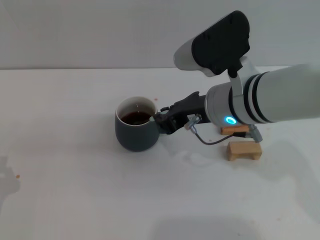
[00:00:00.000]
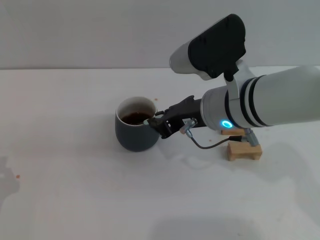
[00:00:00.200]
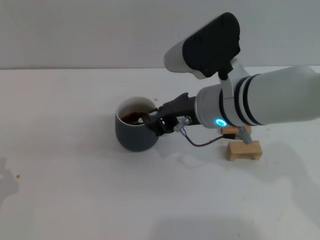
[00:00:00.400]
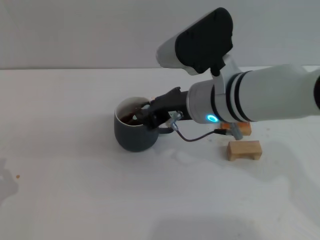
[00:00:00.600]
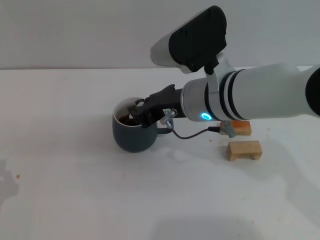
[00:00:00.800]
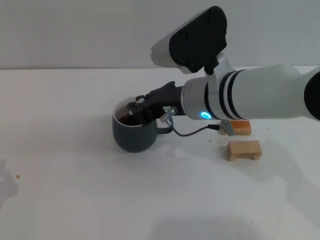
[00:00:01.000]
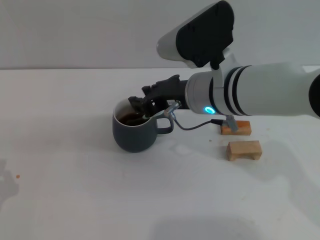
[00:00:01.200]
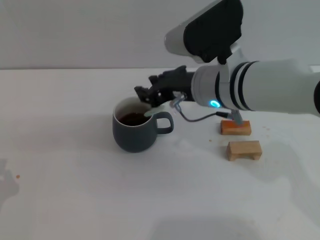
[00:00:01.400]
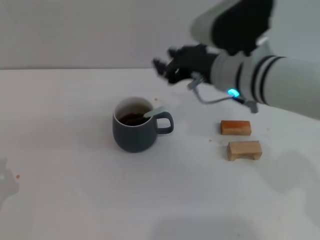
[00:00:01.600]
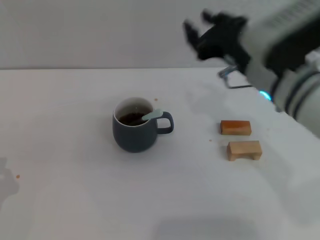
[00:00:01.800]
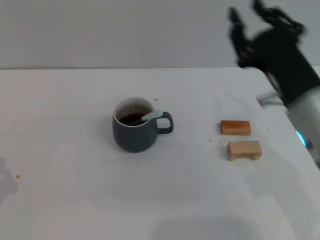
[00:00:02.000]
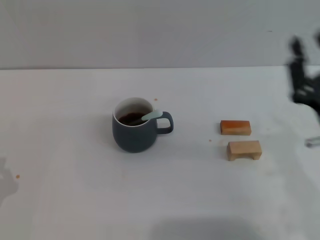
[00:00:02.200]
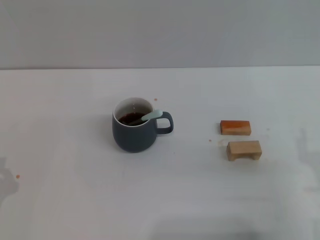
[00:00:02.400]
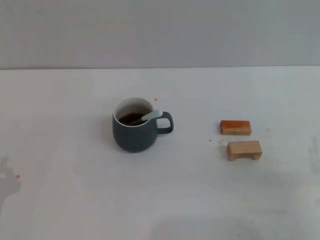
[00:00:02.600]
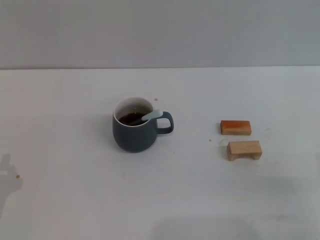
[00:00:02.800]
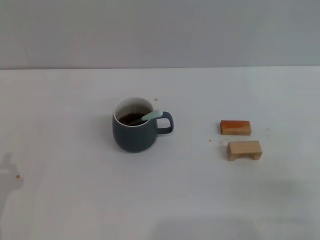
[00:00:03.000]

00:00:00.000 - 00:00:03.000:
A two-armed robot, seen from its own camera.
Task of the whole recording: Move the grey cup to the center, lift the blue spoon, stir it three times in the cup, and put the spoon into the cup.
00:00:00.000 - 00:00:01.600: The right gripper opens its fingers.
00:00:01.600 - 00:00:03.000: The right gripper heads backward, to the right and downward, covering approximately 30 cm, and opens its fingers.
